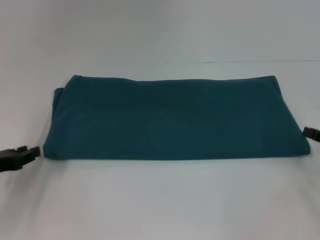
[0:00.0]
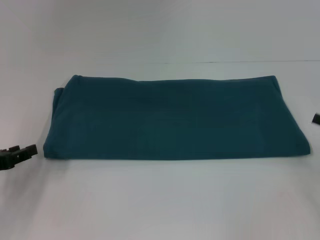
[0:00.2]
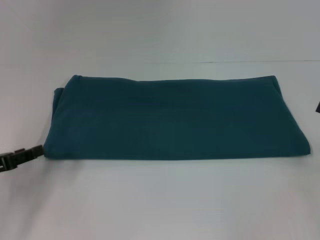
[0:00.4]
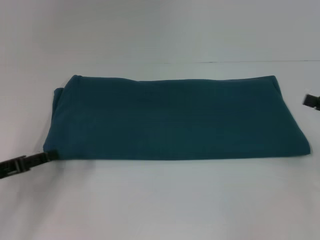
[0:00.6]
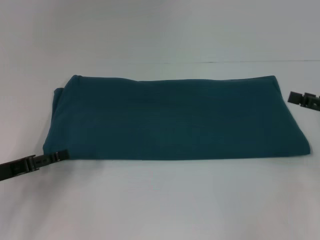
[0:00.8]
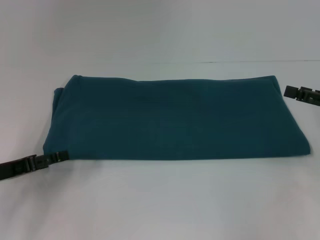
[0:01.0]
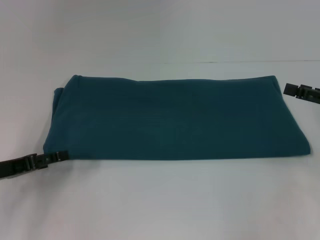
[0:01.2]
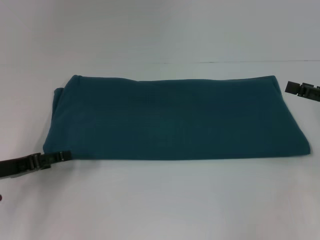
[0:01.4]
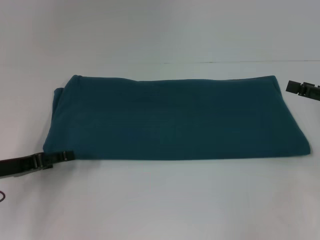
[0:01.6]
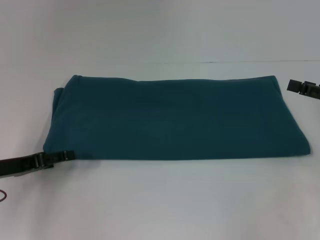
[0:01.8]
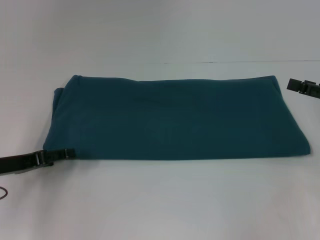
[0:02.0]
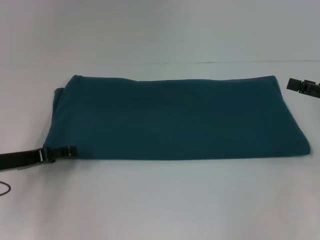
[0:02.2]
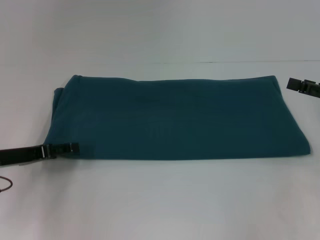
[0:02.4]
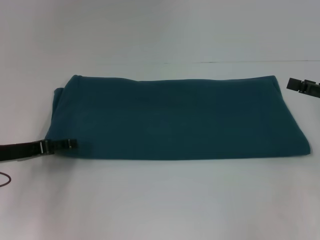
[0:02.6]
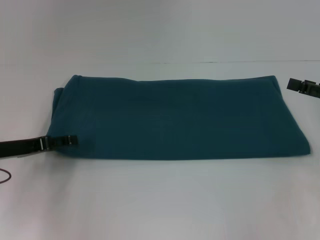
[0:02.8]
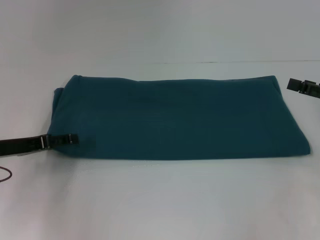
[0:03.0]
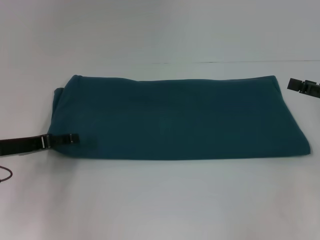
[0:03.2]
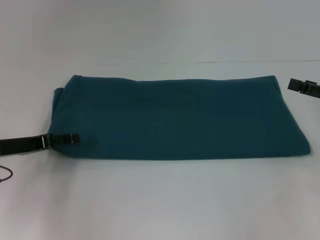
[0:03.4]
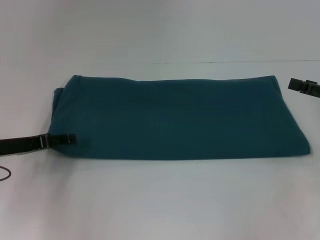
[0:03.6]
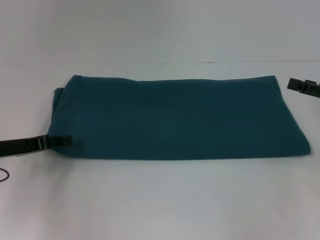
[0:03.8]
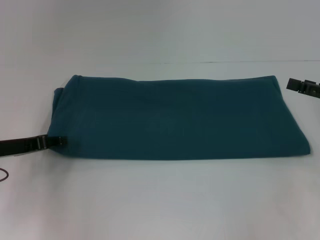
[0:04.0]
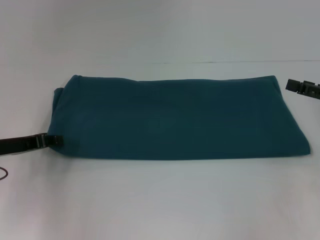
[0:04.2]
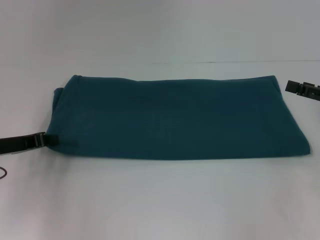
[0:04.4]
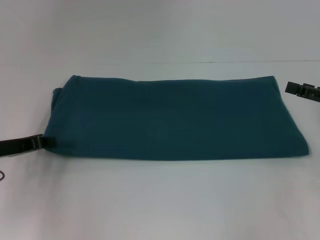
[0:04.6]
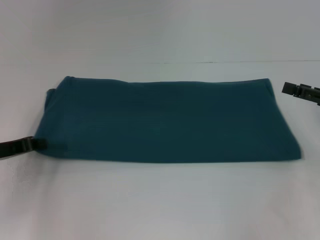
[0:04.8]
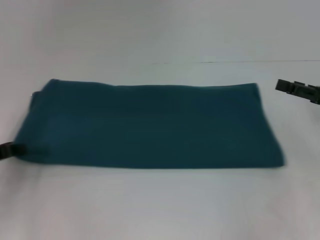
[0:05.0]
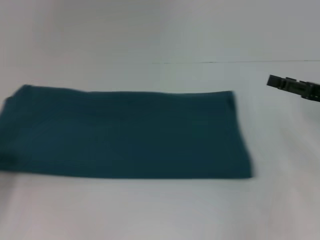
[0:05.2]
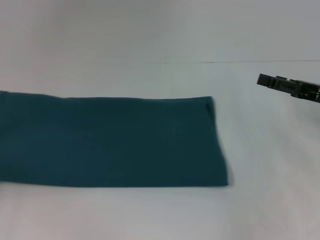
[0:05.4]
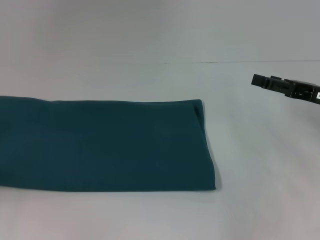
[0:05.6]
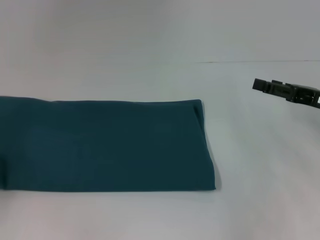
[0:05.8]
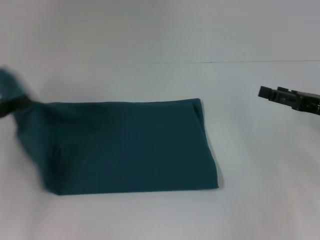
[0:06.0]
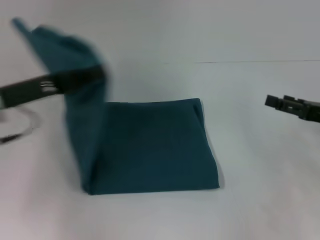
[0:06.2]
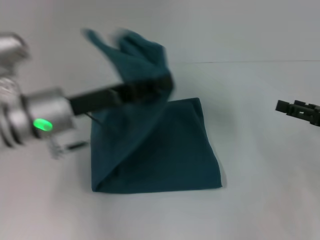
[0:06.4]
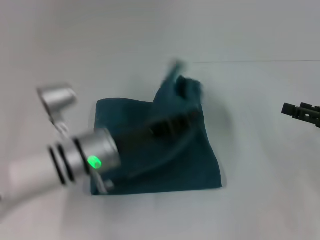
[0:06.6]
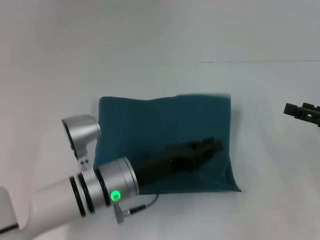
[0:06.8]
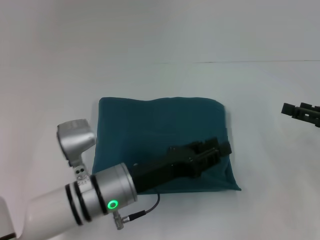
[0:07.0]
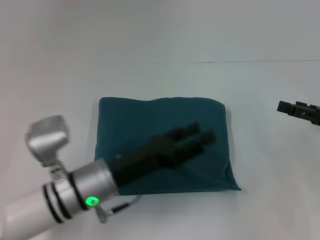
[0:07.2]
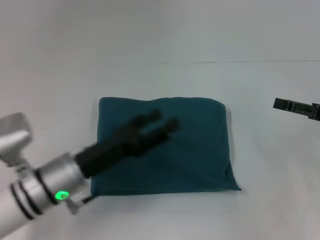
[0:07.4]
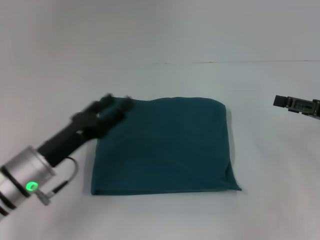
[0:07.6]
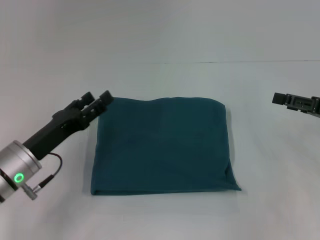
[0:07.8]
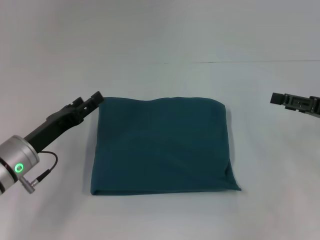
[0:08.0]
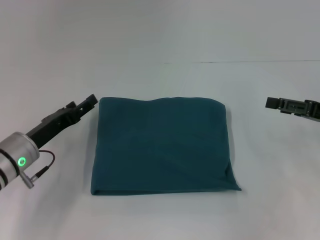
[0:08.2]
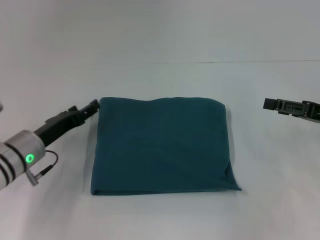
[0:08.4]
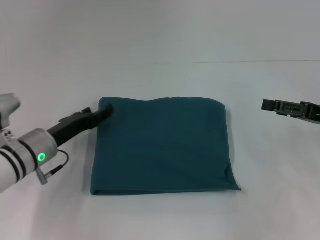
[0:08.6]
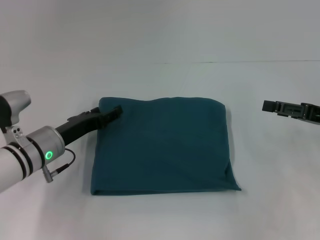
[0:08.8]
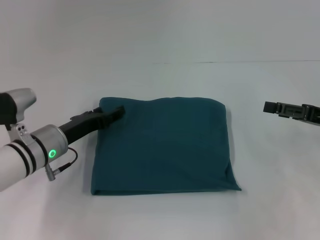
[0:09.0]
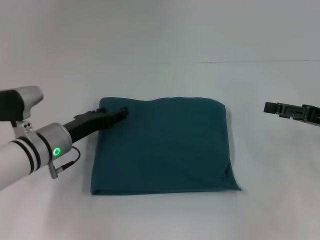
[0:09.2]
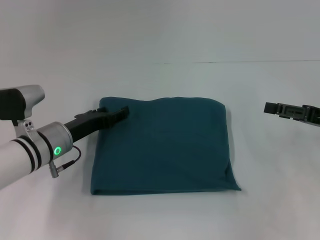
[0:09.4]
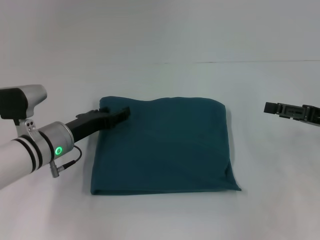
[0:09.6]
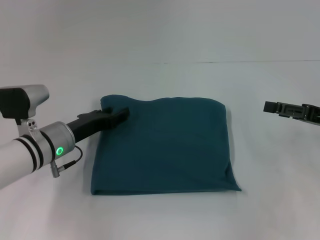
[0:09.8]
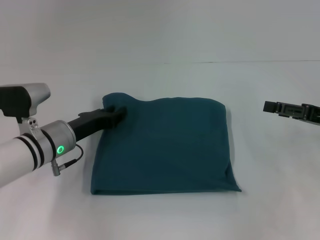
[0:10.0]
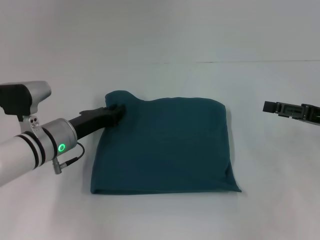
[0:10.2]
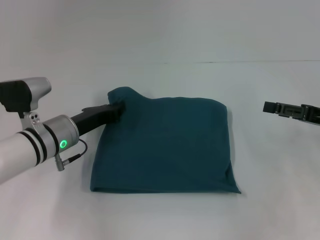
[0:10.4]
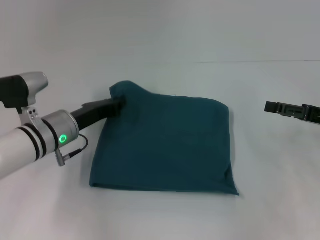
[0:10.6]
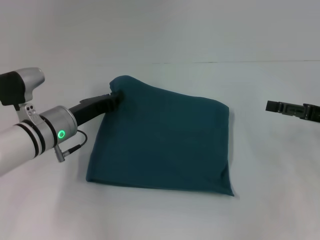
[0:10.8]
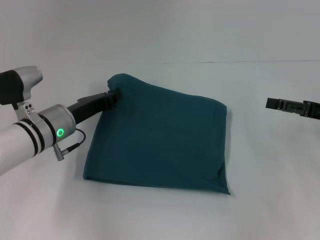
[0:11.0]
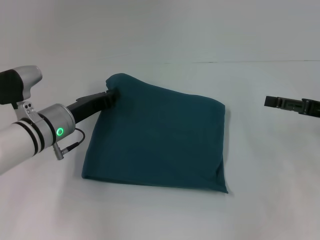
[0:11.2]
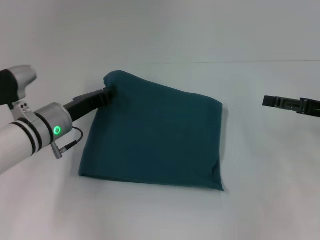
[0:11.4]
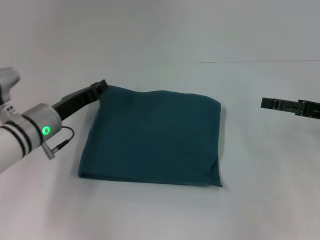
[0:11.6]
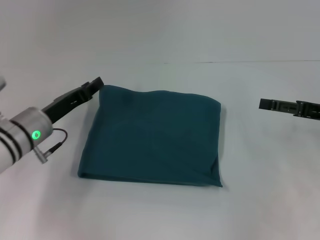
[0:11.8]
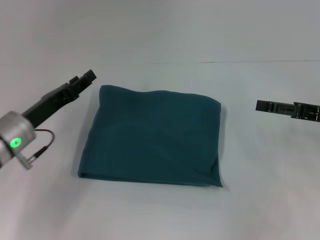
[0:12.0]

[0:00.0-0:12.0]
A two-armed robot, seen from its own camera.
Step, 0:00.0 to 0:07.0: Fold the clothes to the left.
0:00.0 to 0:01.6: The right gripper travels upward by roughly 5 cm, and opens up. Meanwhile the left gripper opens its fingers.
0:01.6 to 0:03.0: The grippers make only small movements.
0:03.0 to 0:04.4: The left gripper closes its fingers.
0:04.4 to 0:06.0: The left gripper travels upward by roughly 5 cm, and travels to the left and back again, some 15 cm each way.
0:06.0 to 0:07.6: The left gripper heads to the right and downward, covering some 15 cm, and opens up.
0:07.6 to 0:09.0: The left gripper travels forward by roughly 5 cm.
0:09.0 to 0:10.4: The left gripper closes its fingers.
0:10.4 to 0:12.0: The left gripper heads to the left, covering about 5 cm.

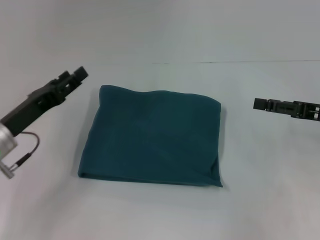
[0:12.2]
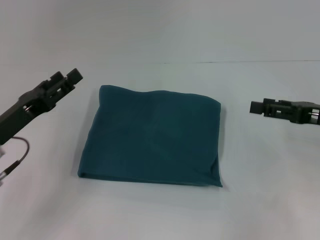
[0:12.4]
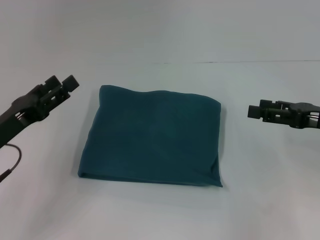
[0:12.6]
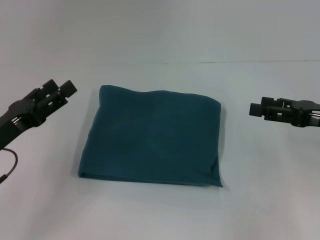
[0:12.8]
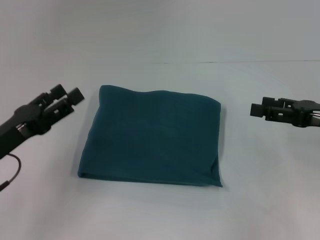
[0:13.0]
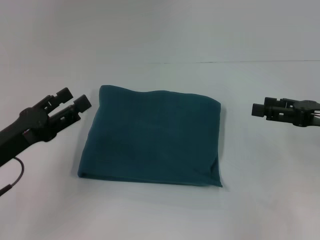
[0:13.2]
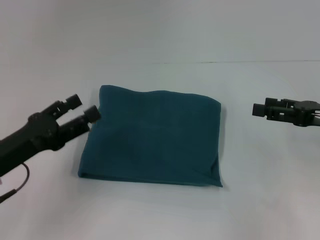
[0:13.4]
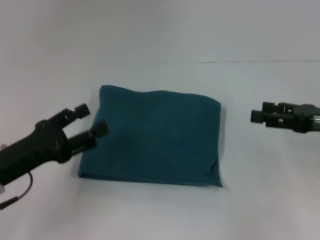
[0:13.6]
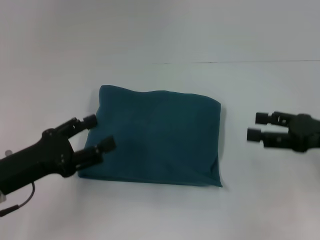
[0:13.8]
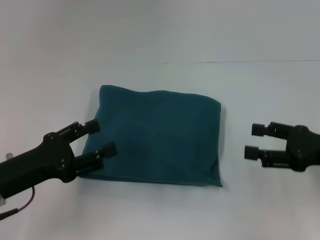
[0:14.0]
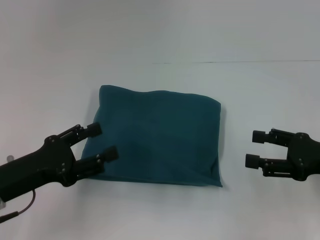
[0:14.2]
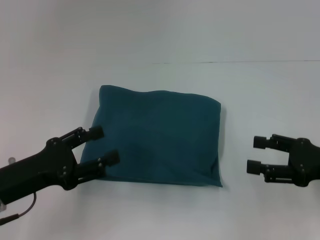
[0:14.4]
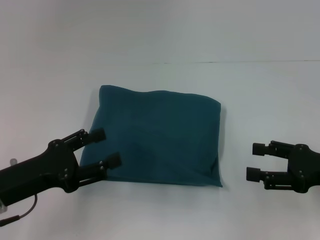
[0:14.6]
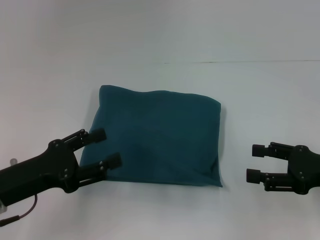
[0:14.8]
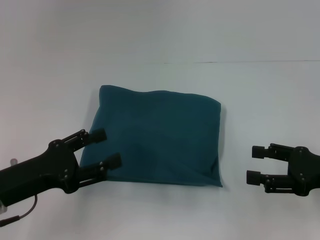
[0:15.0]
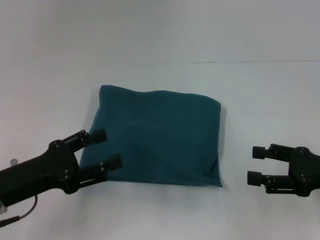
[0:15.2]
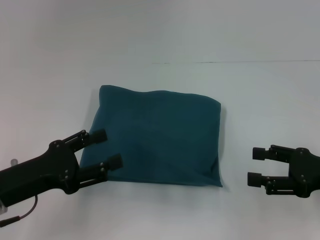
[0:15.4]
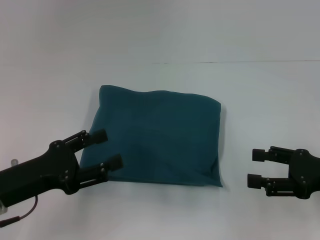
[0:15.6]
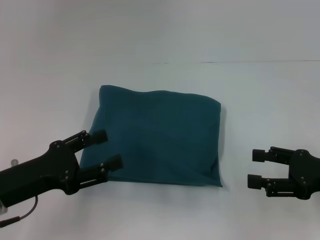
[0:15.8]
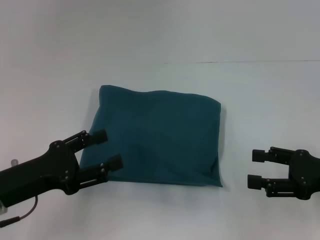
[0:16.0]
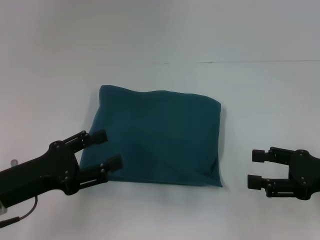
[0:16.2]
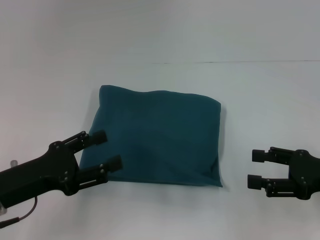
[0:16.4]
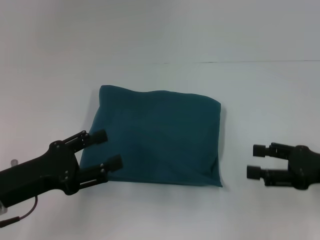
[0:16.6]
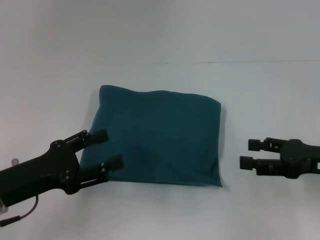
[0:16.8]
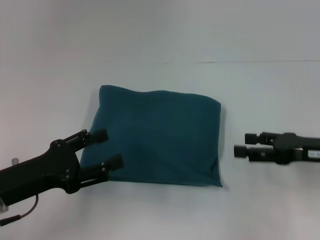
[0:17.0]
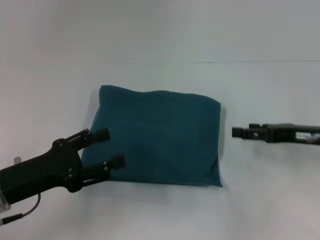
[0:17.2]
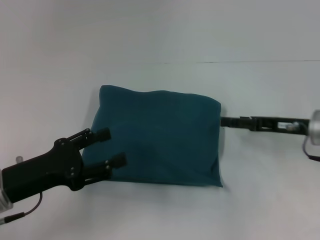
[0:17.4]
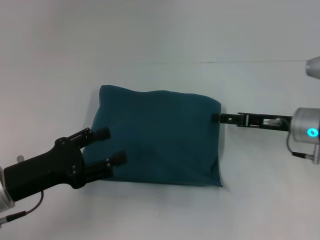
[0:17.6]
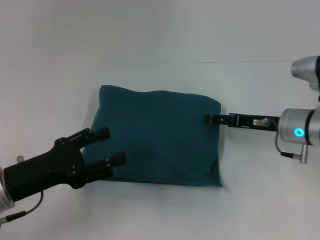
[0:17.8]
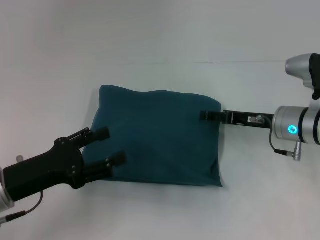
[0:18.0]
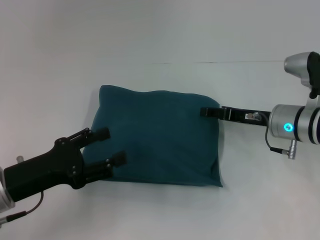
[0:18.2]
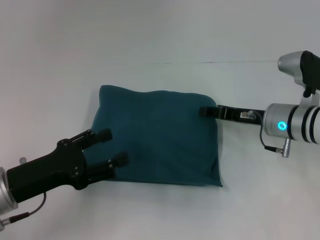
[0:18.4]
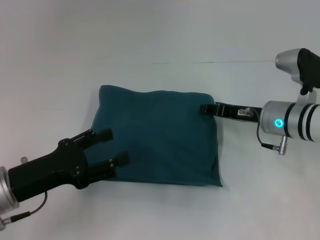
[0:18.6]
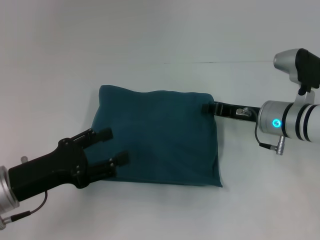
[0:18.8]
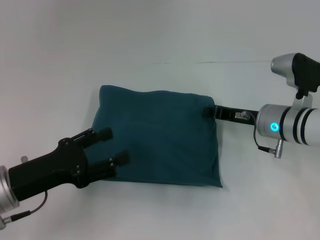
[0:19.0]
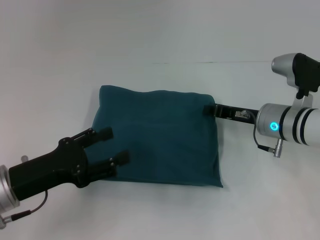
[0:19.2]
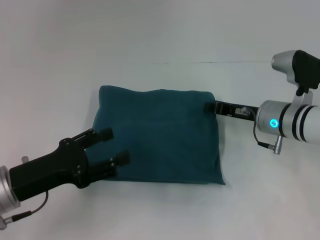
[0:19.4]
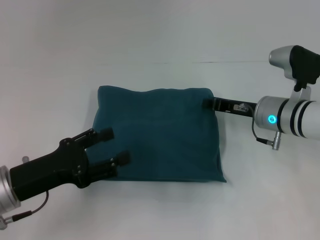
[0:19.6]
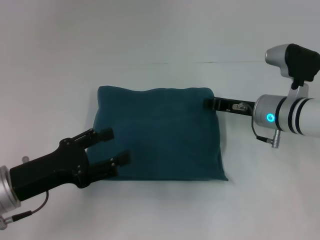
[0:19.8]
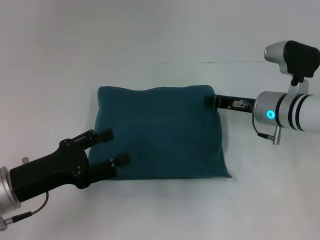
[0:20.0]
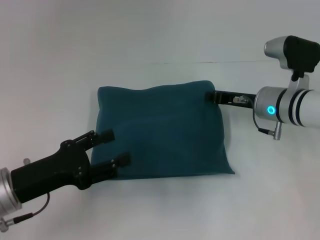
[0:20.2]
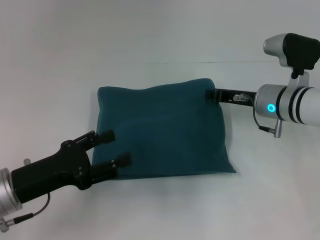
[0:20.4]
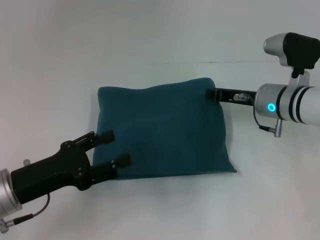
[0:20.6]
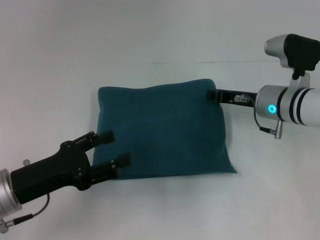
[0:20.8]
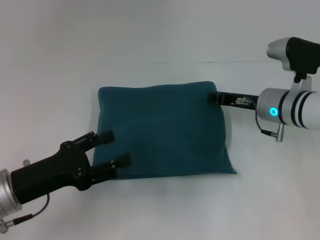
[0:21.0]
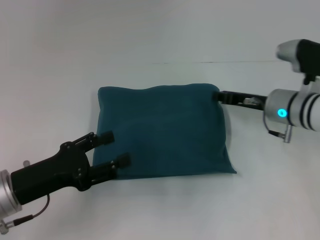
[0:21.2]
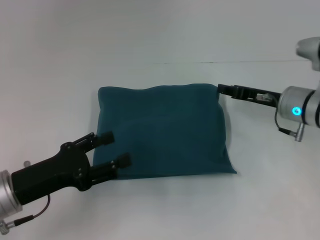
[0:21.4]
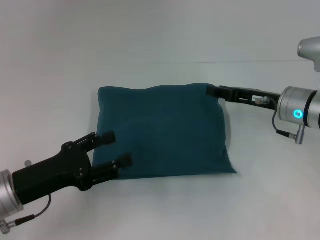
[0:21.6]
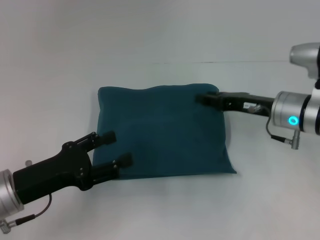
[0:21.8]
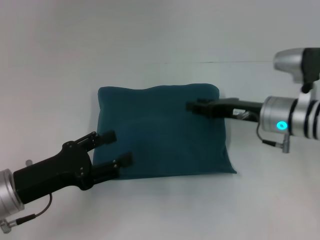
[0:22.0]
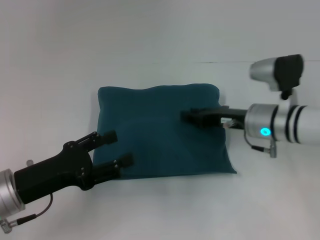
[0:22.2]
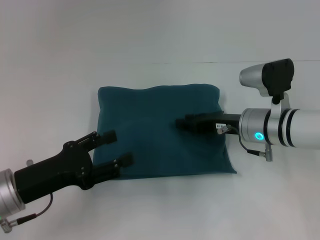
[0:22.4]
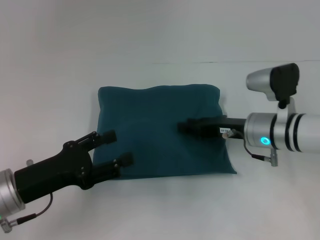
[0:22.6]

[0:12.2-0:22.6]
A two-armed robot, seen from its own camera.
0:12.2 to 0:13.6: The left gripper moves backward, some 5 cm, and opens its fingers.
0:13.6 to 0:15.2: The right gripper travels backward by roughly 5 cm.
0:15.2 to 0:16.6: The two grippers keep their place.
0:16.6 to 0:18.2: The right gripper shifts approximately 15 cm forward and to the left.
0:18.2 to 0:19.6: The right gripper closes.
0:19.6 to 0:21.2: The grippers make only small movements.
